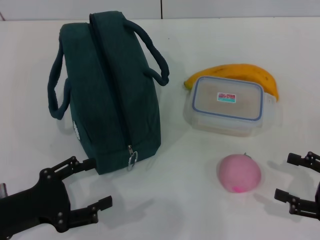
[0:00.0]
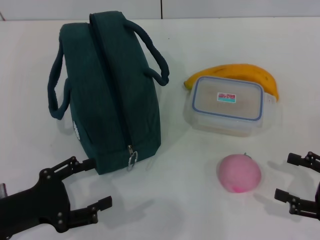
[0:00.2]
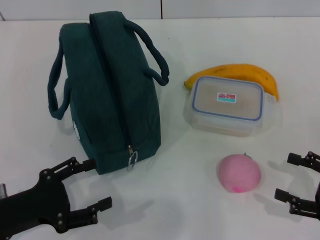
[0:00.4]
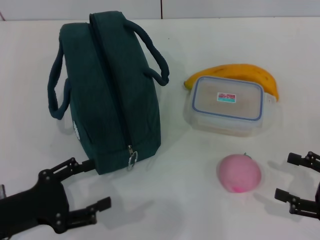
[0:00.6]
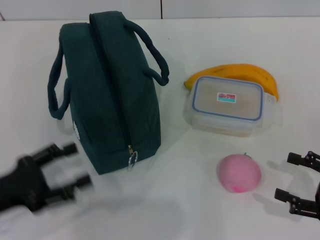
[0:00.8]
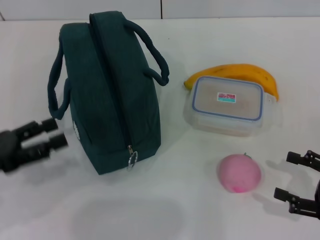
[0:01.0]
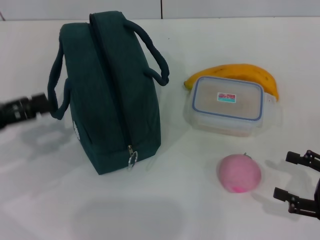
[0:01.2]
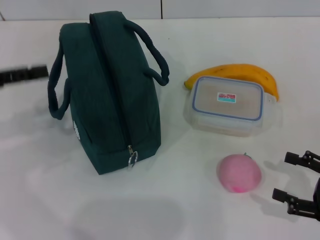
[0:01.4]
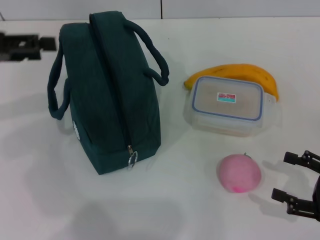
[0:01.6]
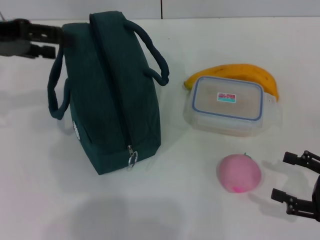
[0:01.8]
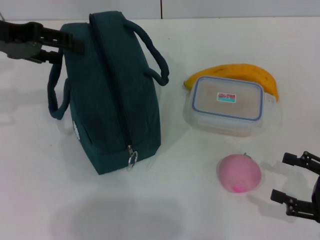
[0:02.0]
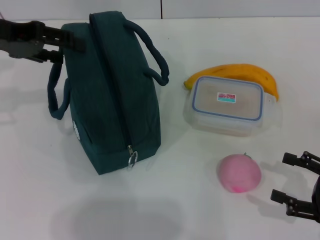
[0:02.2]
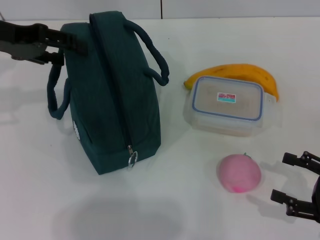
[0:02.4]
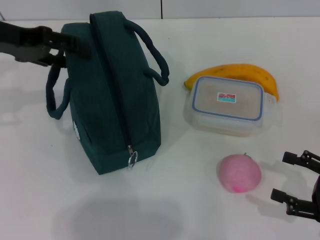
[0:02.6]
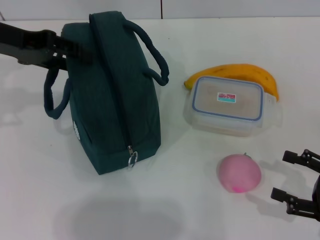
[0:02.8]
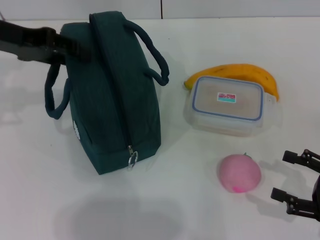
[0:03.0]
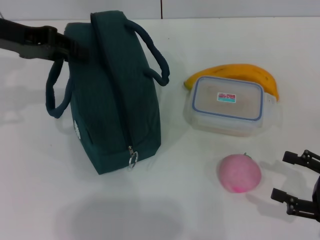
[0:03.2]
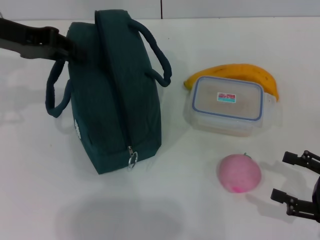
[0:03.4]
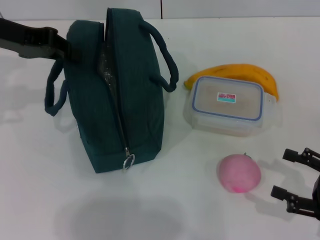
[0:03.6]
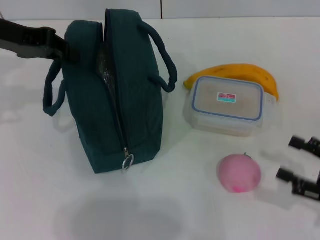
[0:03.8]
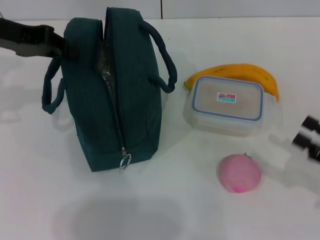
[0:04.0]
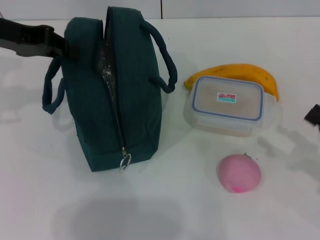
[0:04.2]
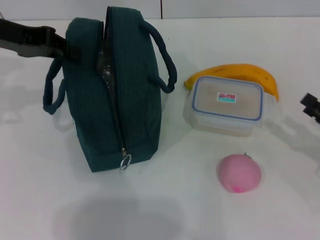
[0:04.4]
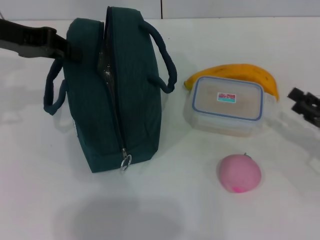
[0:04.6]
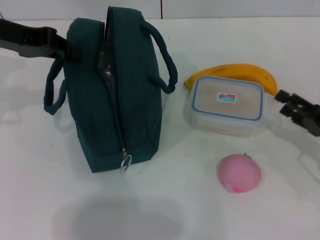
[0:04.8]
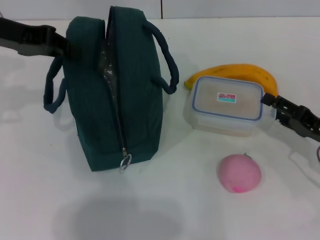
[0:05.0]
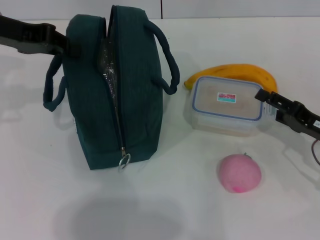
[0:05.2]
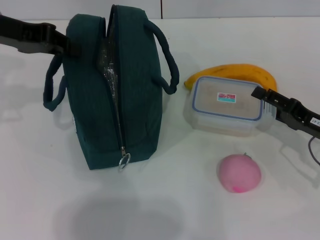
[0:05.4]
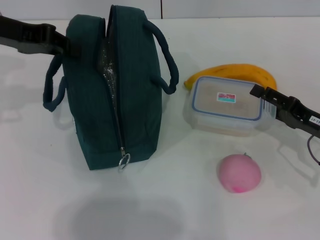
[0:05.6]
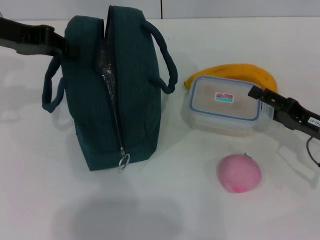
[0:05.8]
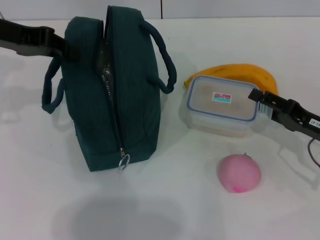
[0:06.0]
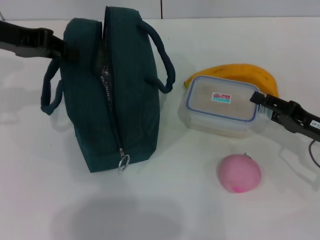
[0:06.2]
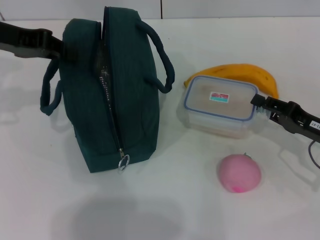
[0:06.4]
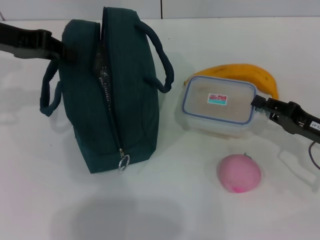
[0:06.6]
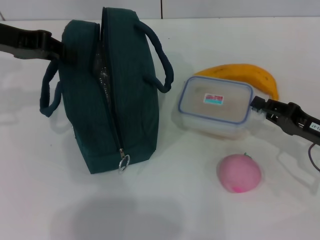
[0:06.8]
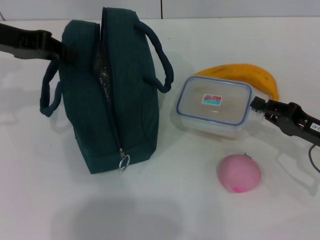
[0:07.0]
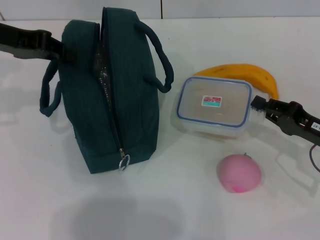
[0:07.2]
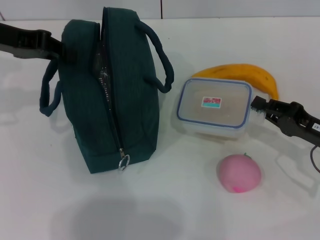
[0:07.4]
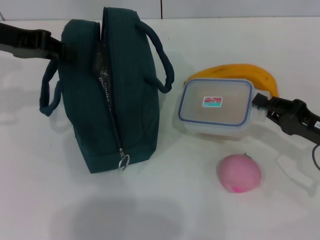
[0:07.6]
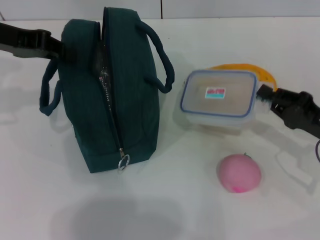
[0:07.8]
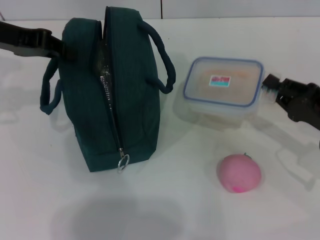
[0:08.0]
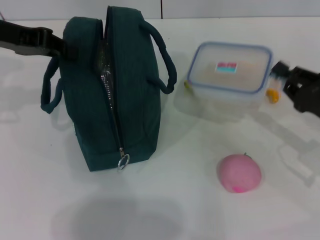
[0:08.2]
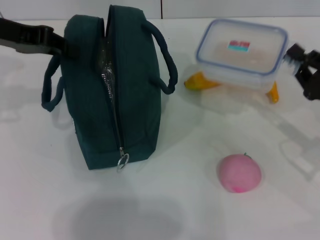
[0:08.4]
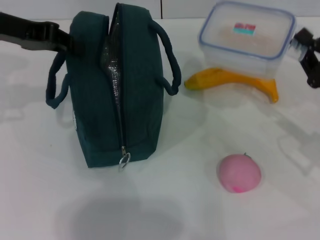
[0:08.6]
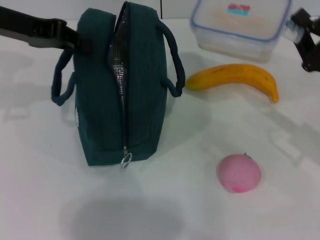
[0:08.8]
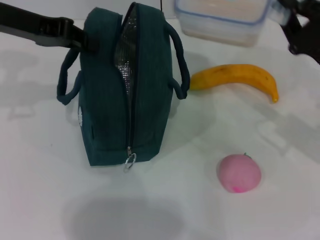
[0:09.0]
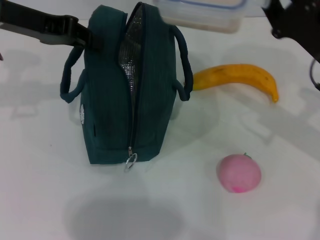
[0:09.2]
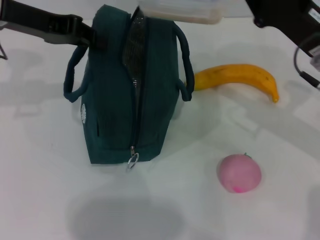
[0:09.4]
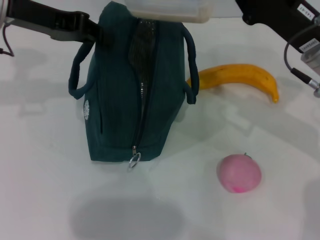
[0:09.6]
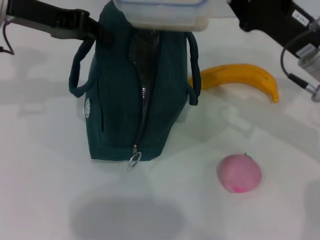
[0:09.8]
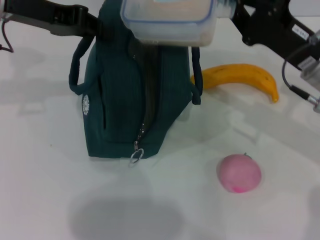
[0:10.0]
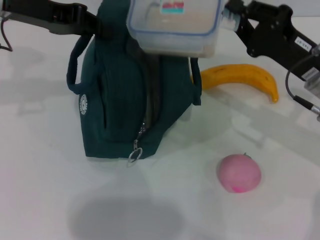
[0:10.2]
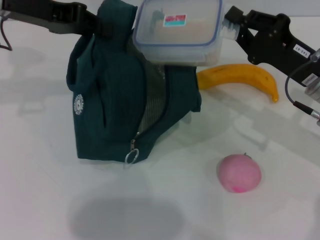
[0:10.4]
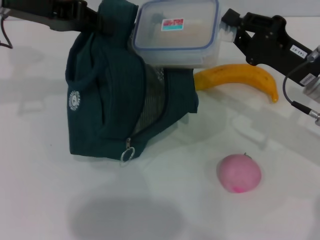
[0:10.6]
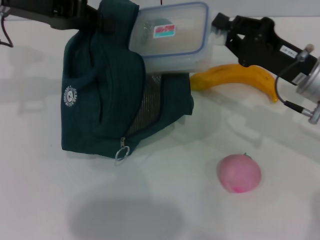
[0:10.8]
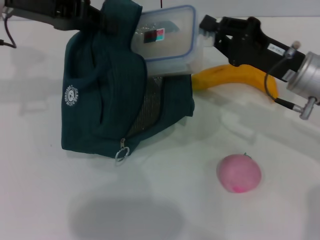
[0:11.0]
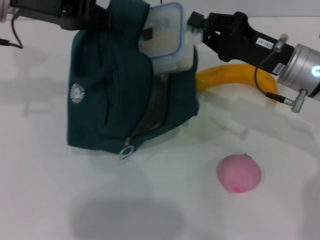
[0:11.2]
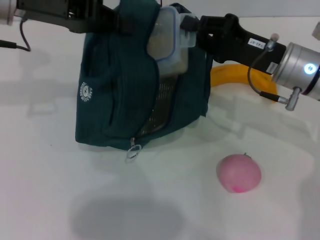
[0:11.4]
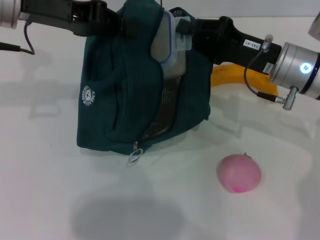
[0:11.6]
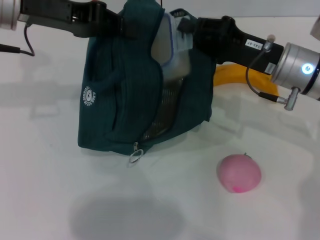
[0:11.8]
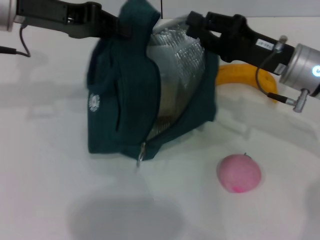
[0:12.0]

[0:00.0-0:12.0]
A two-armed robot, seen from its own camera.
Step, 0:00.0 to 0:04.0: Hold the lunch bag with your left hand.
Step, 0:04.2 to 0:06.8: Pick up the lunch box with your right hand.
Step, 0:07.0 to 0:11.8: Place the lunch box into the lunch bag with your right hand.
0:00.0 to 0:01.6: The left gripper moves upward and forward, approximately 25 cm.
0:01.6 to 0:03.0: The left gripper goes some 10 cm to the right and forward.
0:03.0 to 0:04.4: The left gripper closes up.
0:04.4 to 0:06.0: The right gripper goes approximately 10 cm forward and to the left.
0:06.0 to 0:07.6: The right gripper closes.
0:07.6 to 0:09.0: The right gripper goes approximately 5 cm upward.

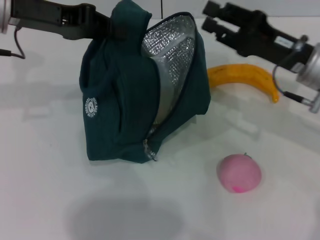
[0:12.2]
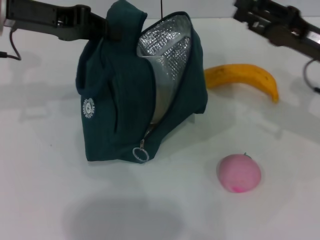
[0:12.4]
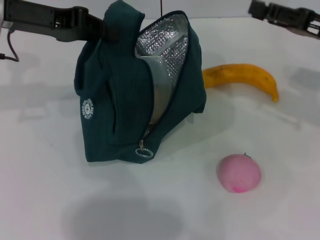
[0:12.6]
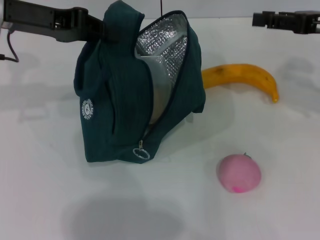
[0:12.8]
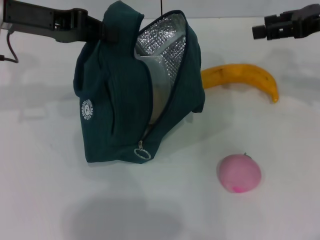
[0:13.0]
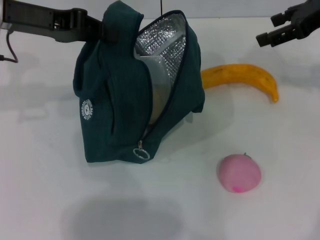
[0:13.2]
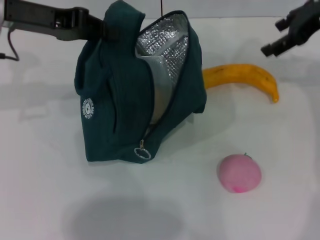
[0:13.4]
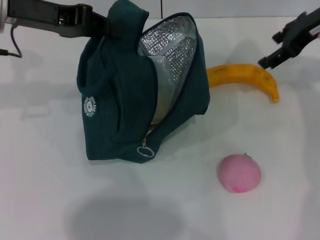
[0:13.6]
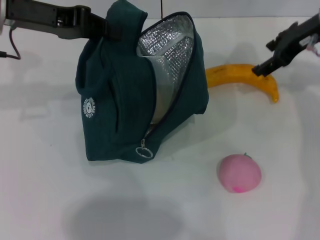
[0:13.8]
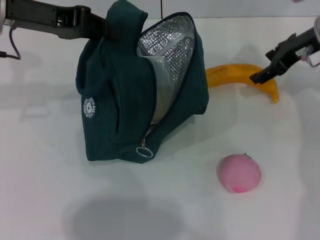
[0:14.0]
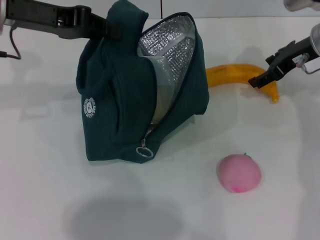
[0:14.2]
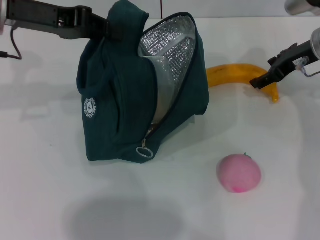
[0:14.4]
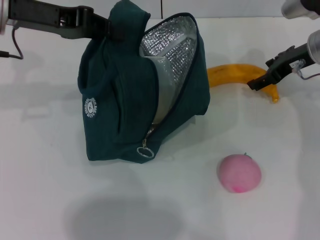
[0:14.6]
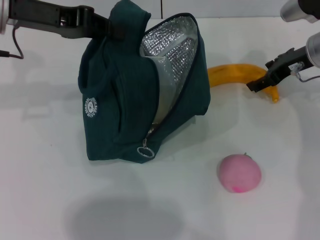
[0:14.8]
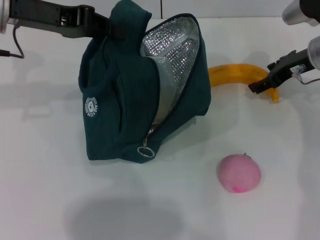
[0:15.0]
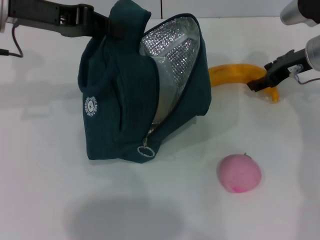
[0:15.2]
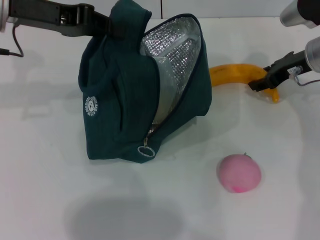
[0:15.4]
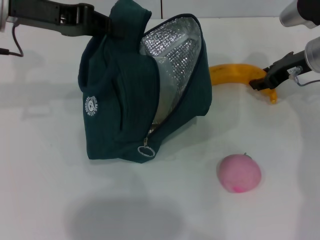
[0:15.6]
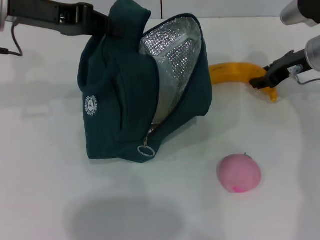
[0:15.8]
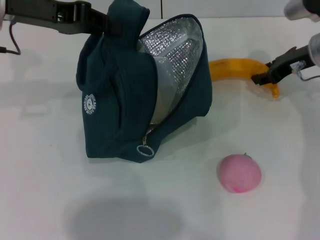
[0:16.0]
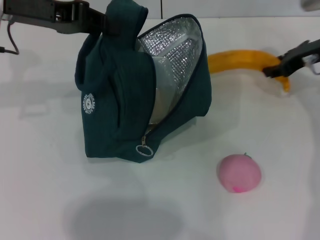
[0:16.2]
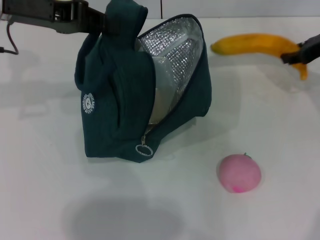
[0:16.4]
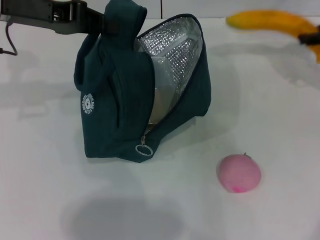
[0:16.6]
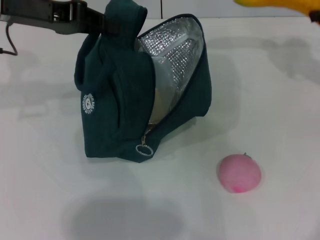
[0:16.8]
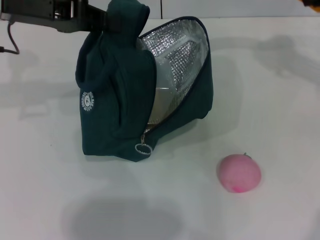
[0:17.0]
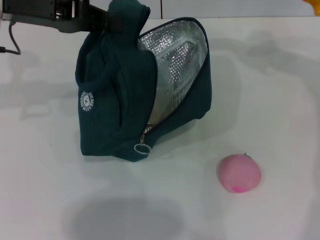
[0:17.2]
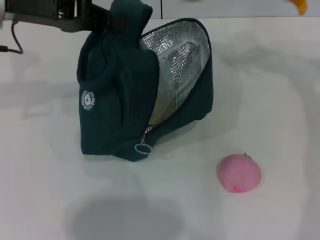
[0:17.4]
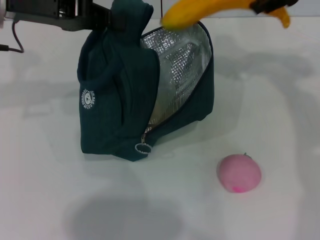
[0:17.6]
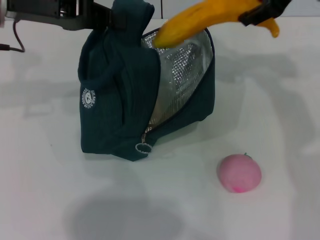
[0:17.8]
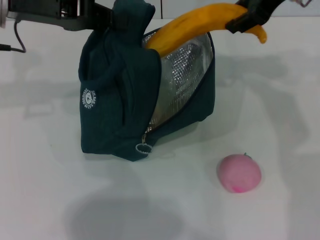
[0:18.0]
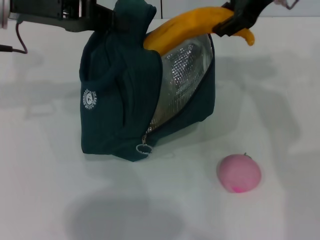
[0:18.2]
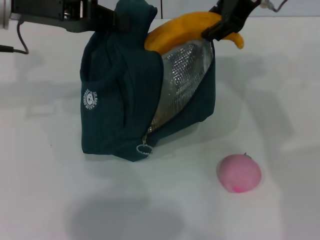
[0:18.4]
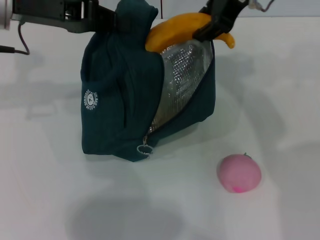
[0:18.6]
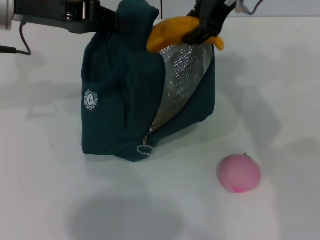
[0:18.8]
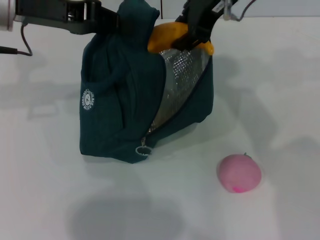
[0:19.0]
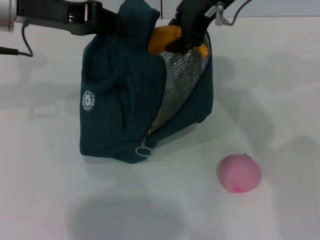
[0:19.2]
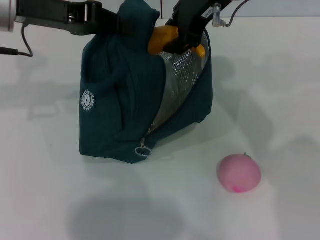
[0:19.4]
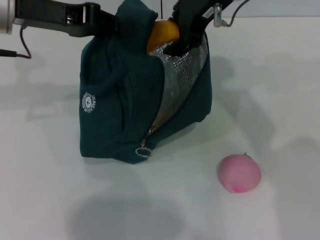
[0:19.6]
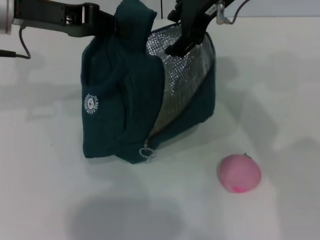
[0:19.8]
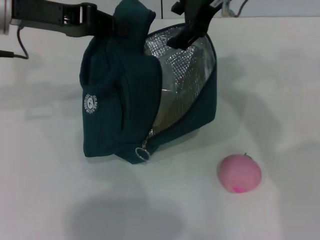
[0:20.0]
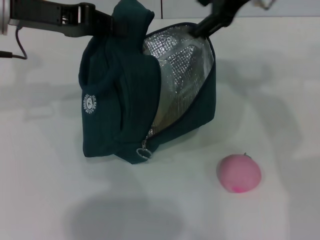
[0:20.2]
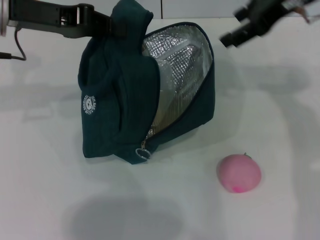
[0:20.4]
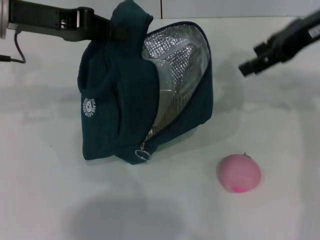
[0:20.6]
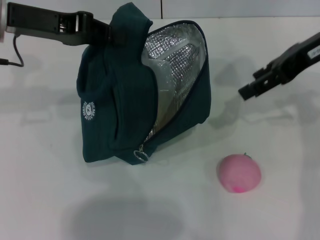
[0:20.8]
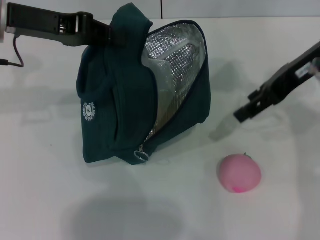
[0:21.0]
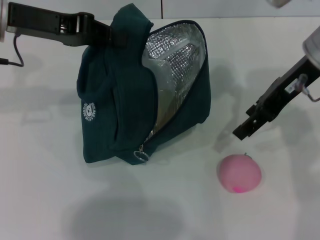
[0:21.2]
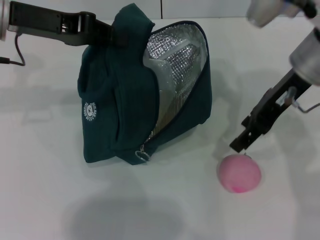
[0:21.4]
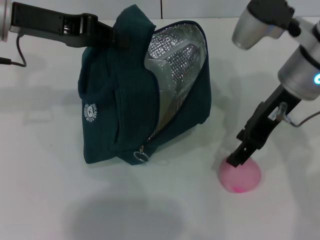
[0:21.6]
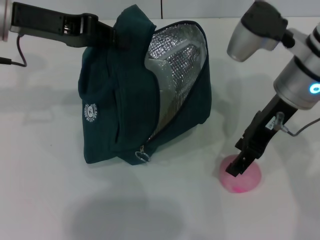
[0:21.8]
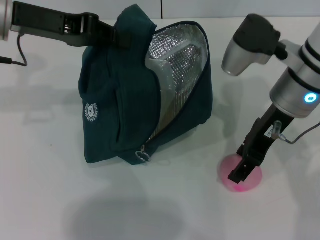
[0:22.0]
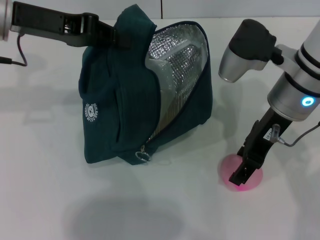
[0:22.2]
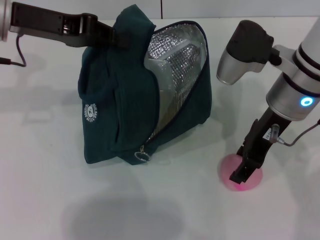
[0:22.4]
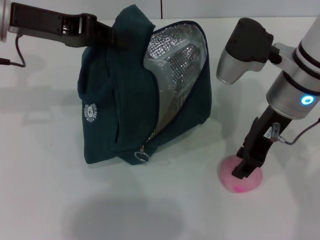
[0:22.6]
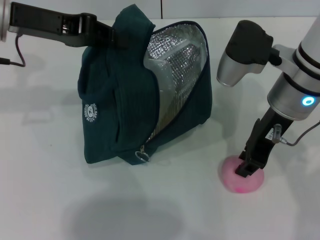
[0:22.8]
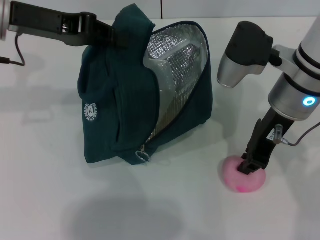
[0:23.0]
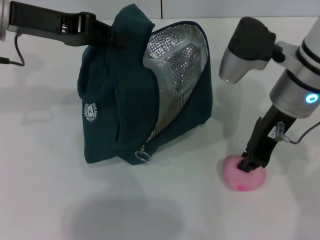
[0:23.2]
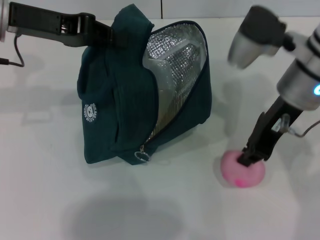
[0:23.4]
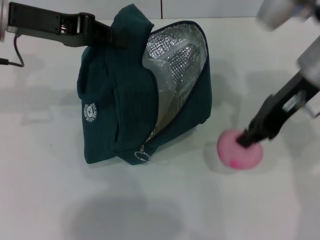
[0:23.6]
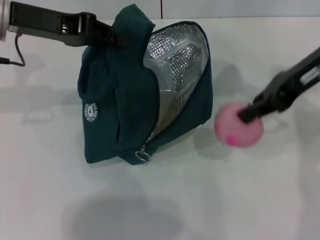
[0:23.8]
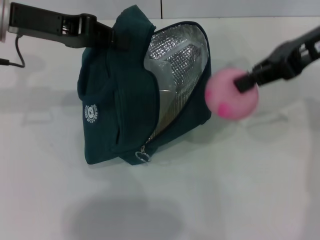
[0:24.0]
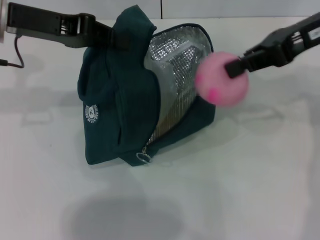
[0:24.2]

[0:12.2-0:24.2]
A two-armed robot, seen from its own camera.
Step, 0:12.2 to 0:15.4: Take the banana with your right hand.
Step, 0:15.6 to 0:20.0: Put the banana into the lunch bag with your right hand.
Step, 0:20.2 to 0:22.8: Grab the peach with your right hand.
0:12.2 to 0:13.8: The right gripper heads forward and upward, covering some 10 cm, and opens up.
0:13.8 to 0:15.2: The right gripper goes some 5 cm downward.
0:15.2 to 0:16.6: The right gripper shifts roughly 10 cm to the right and upward, and closes.
0:16.6 to 0:18.2: The right gripper heads to the left and upward, covering approximately 20 cm.
0:18.2 to 0:19.8: The right gripper is displaced to the left by about 5 cm.
0:19.8 to 0:21.2: The right gripper shifts approximately 10 cm to the right and downward.
0:21.2 to 0:22.6: The right gripper changes place by roughly 5 cm.
0:22.6 to 0:24.2: The right gripper is displaced upward and to the right by some 10 cm, and closes.
